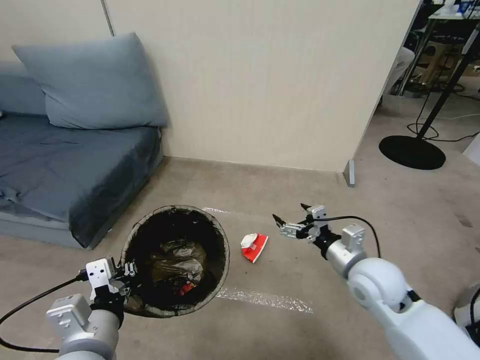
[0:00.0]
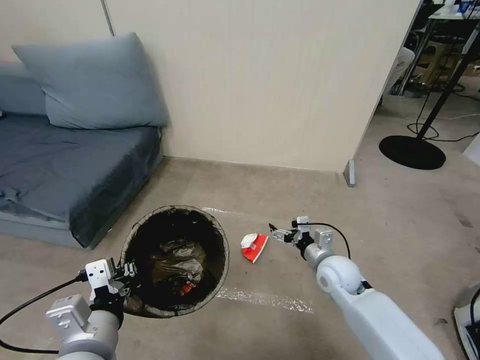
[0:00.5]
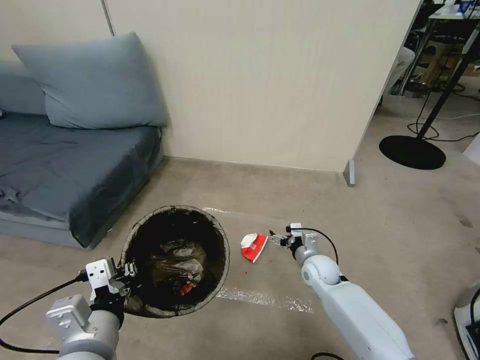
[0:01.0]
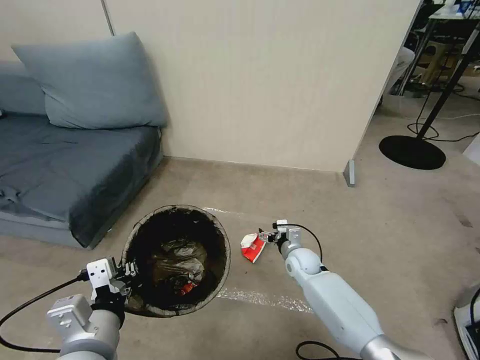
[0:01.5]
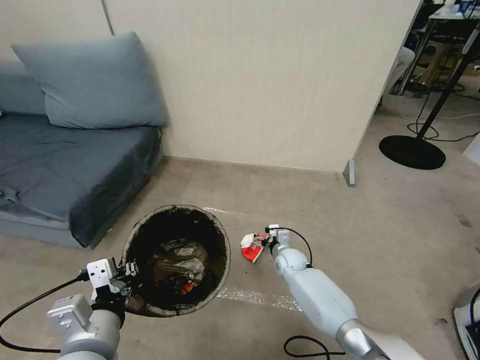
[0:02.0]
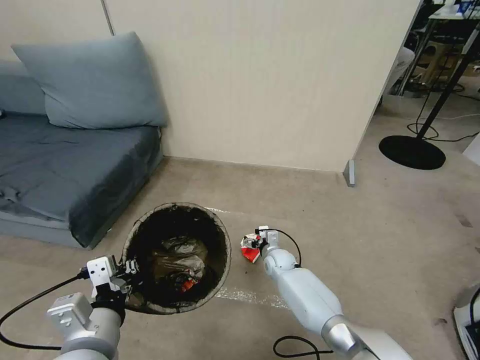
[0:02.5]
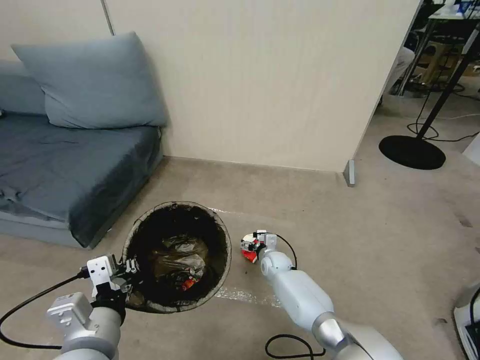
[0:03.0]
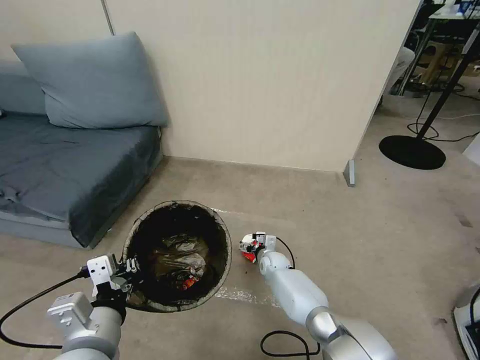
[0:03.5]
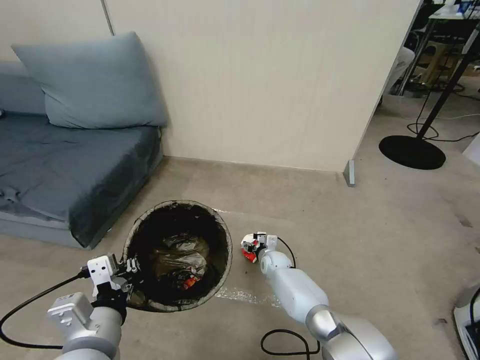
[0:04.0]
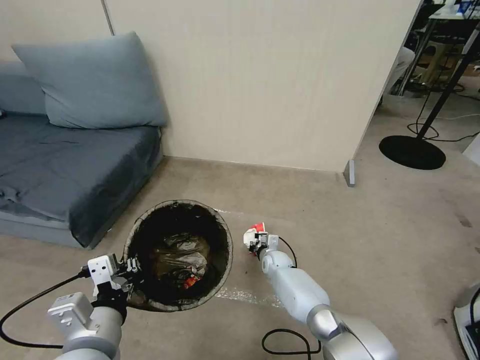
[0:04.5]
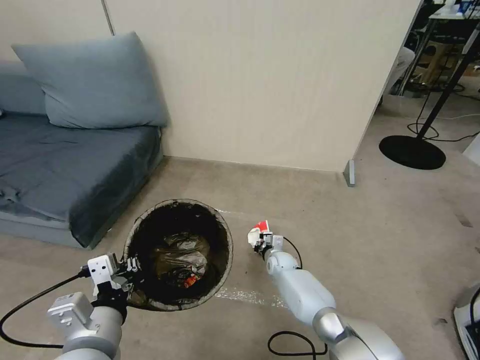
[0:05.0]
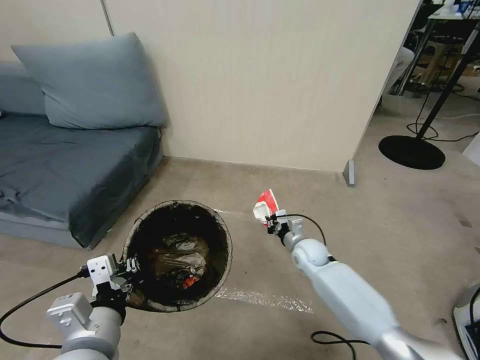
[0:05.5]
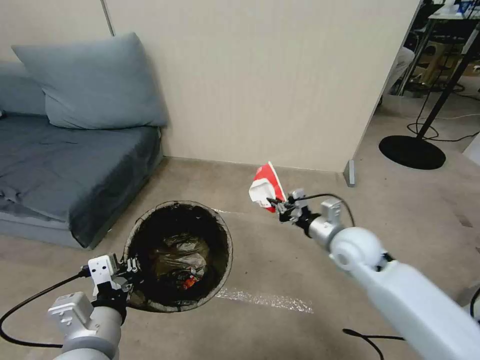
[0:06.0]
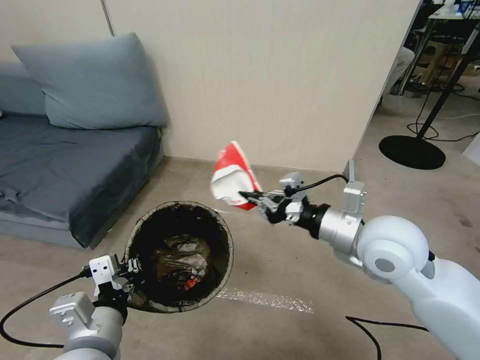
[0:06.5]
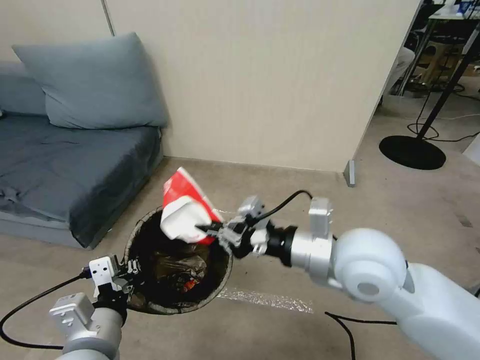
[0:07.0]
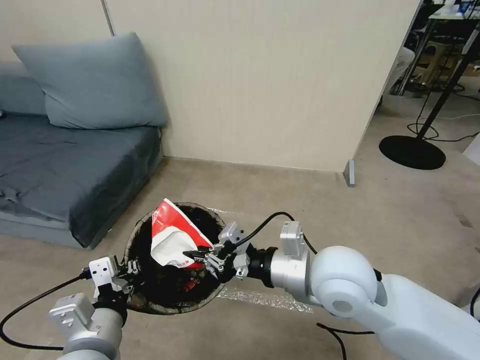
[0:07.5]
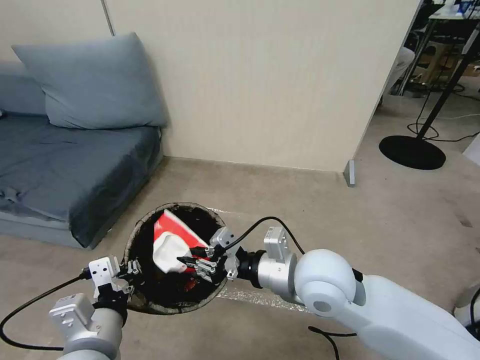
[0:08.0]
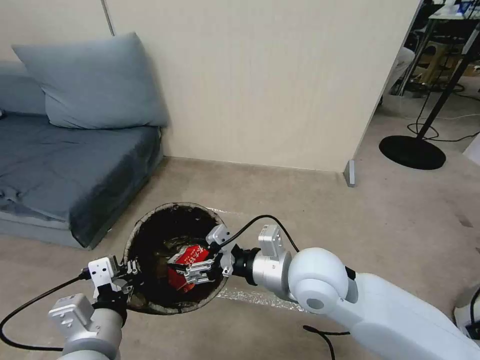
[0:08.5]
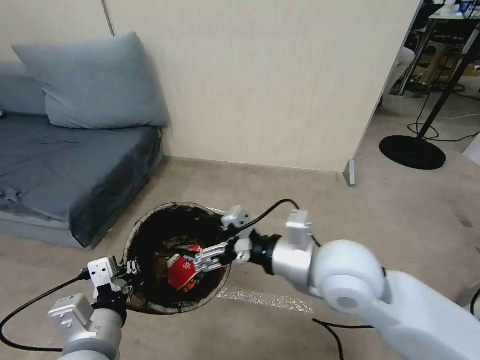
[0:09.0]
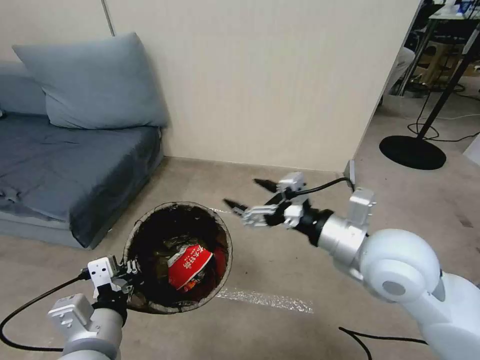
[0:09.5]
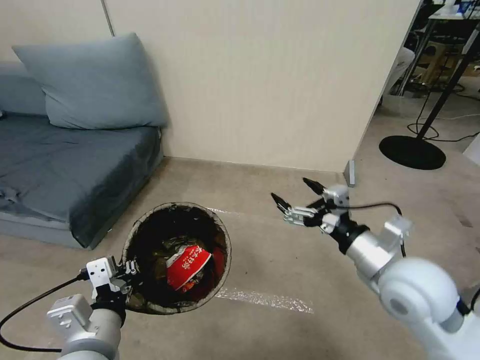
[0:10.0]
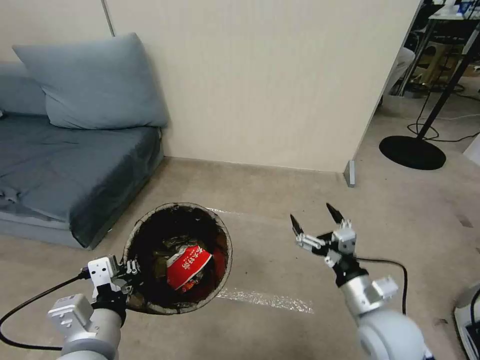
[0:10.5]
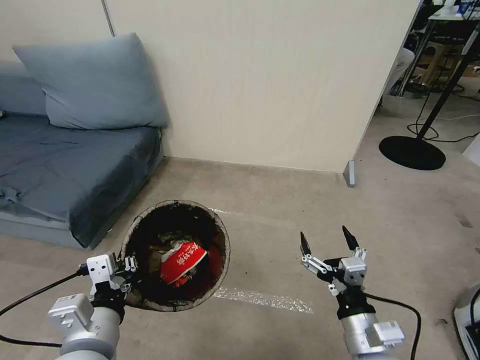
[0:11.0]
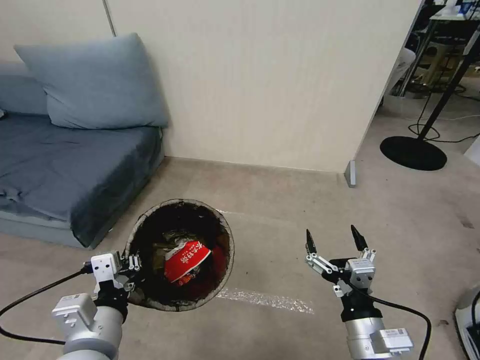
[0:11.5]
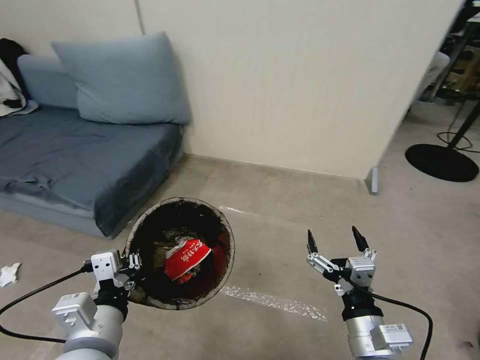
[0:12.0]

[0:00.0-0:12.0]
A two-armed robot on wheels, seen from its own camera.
Task of the whole recording: Pick up the trash bin, then pick up the garbage from the floor and place it into the trash bin.
0:00.0 to 0:02.0: The right gripper heads downward, forward and to the left, covering some 30 cm.
0:02.0 to 0:04.0: The right gripper shifts by about 5 cm.
0:04.0 to 0:06.0: The right gripper moves upward and to the right, roughly 30 cm, and closes up.
0:06.0 to 0:08.0: The right gripper goes roughly 15 cm to the left, backward and upward.
0:08.0 to 0:10.0: The right gripper heads to the right, covering roughly 15 cm, and opens.
0:10.0 to 0:12.0: The right gripper goes approximately 15 cm backward and downward.

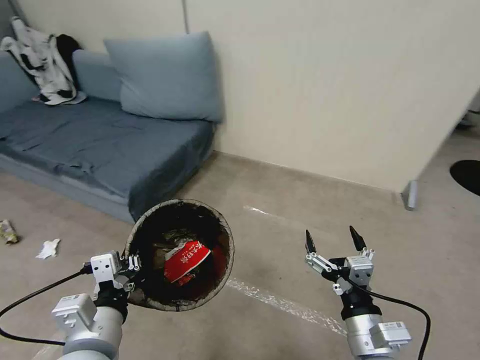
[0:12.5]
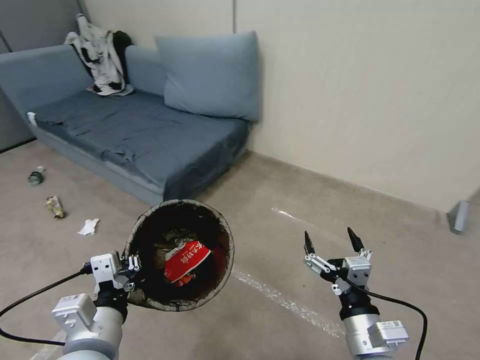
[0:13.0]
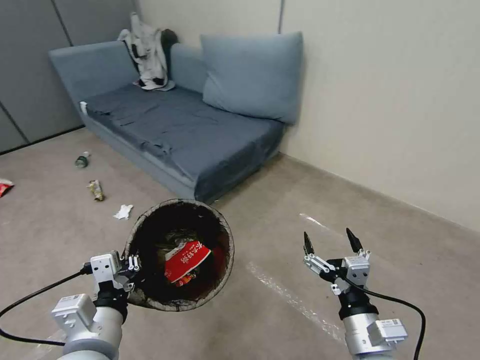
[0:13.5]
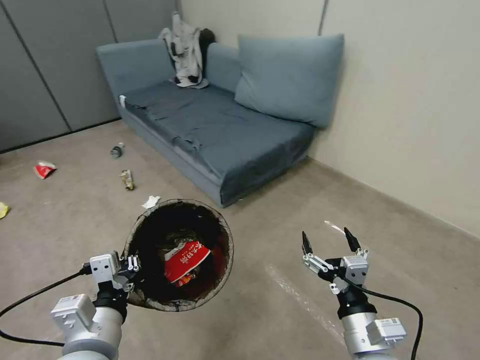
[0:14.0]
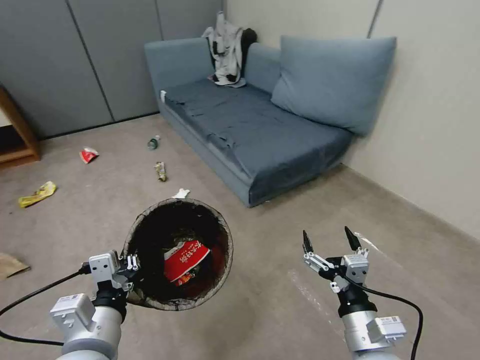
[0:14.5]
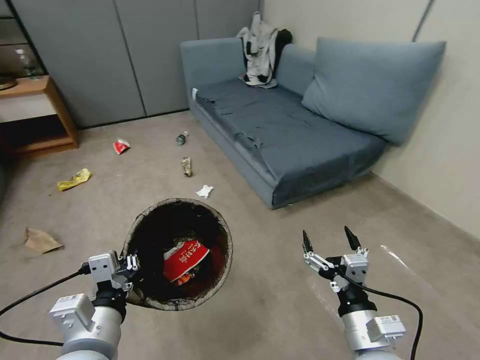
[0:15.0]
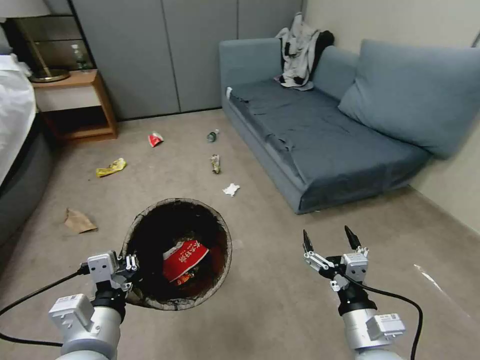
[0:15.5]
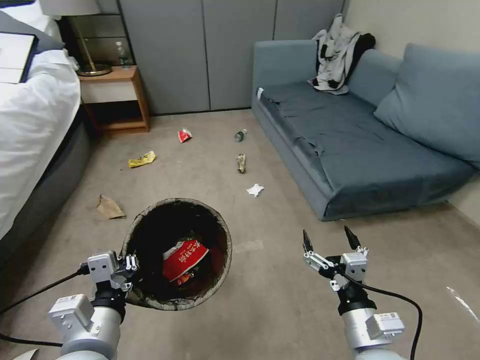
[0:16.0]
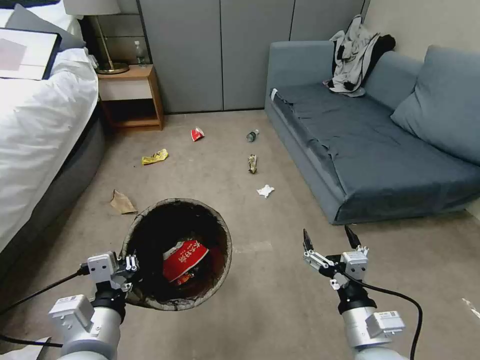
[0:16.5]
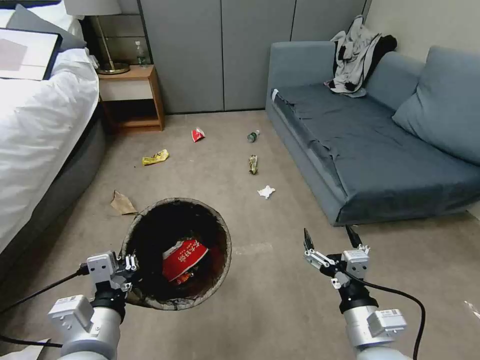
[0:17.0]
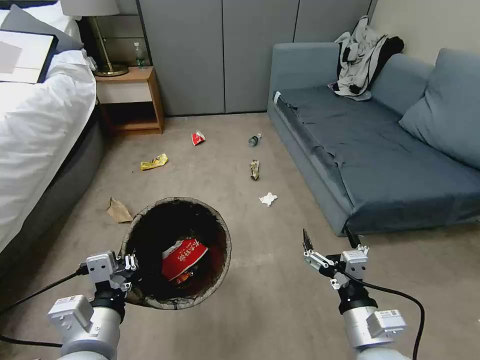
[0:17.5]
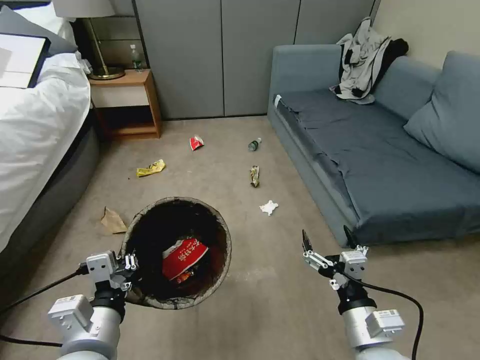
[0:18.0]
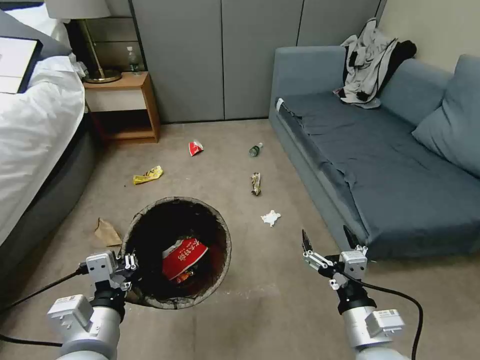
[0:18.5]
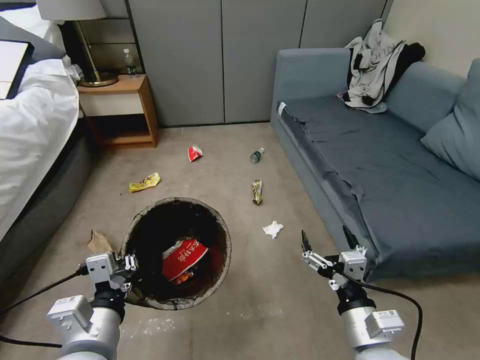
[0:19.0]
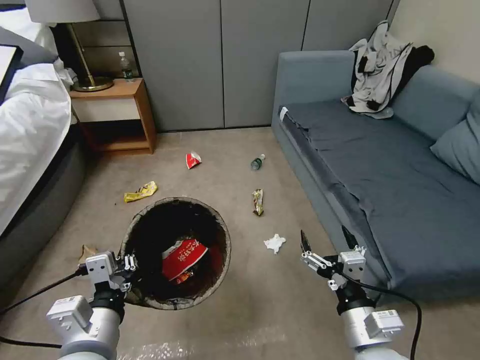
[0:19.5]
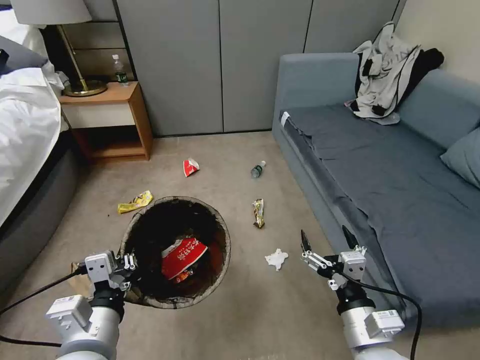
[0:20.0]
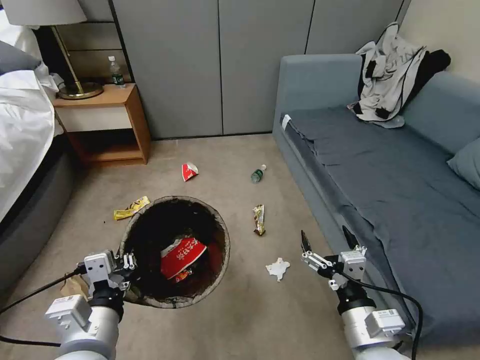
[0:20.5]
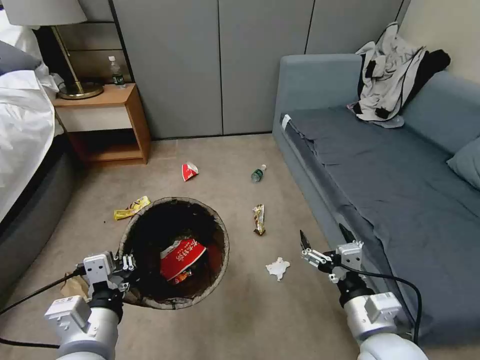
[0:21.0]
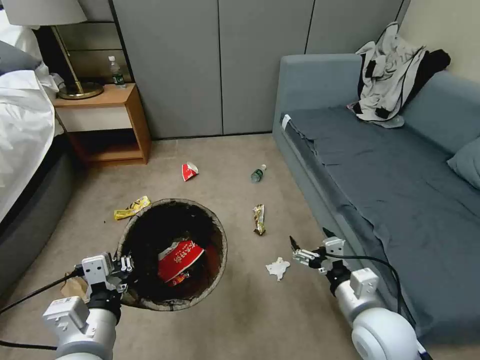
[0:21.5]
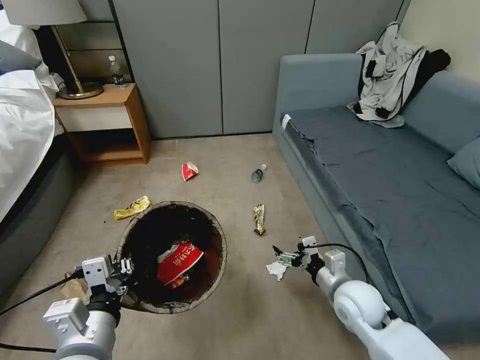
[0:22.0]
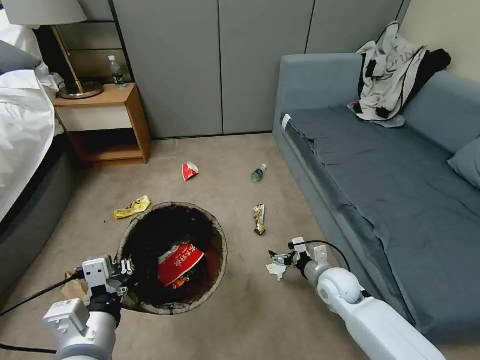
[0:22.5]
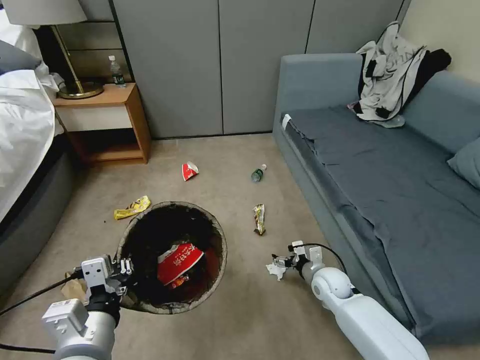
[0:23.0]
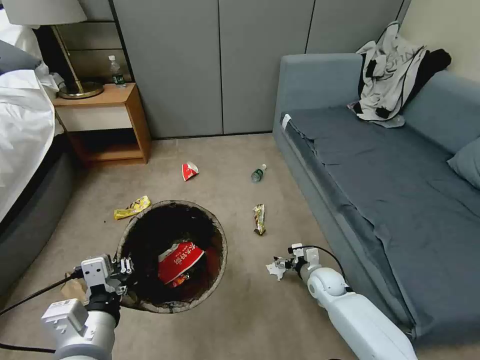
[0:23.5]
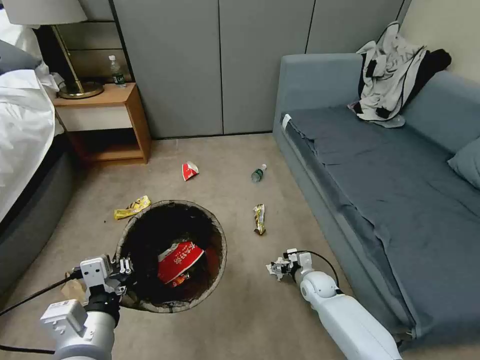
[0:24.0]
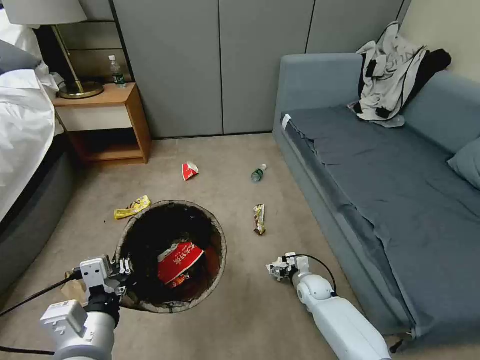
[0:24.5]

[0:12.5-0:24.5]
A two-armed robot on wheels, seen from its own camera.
Task of the whole recording: Pick up the trash bin, then pick up the garbage from the floor and place it into the trash bin.
0:20.5 to 0:22.5: The right gripper travels forward and downward by approximately 25 cm.
0:22.5 to 0:24.5: The right gripper moves downward, approximately 15 cm.

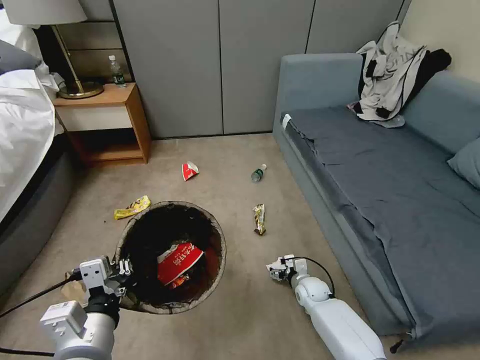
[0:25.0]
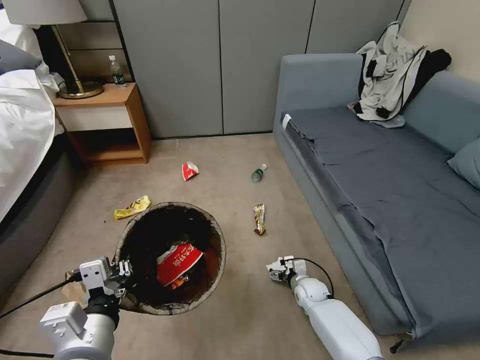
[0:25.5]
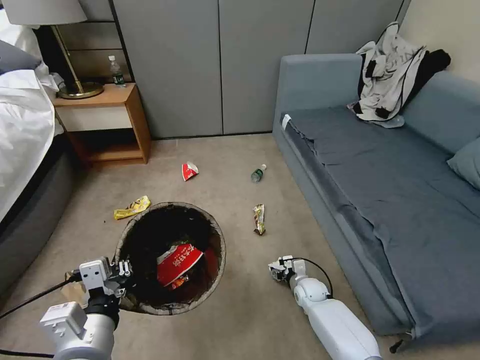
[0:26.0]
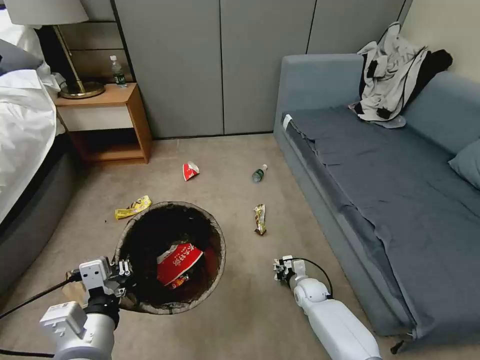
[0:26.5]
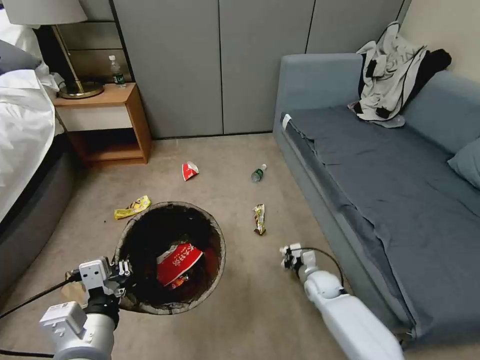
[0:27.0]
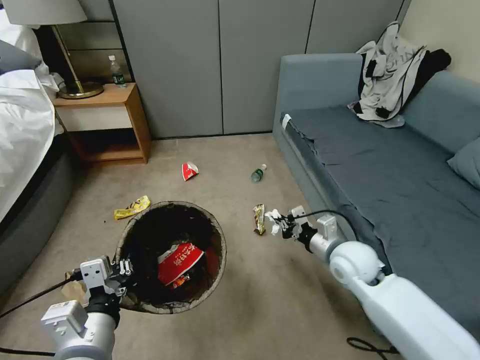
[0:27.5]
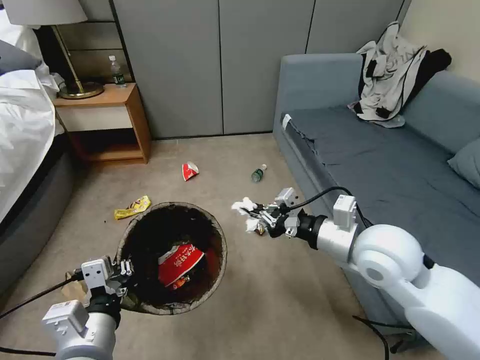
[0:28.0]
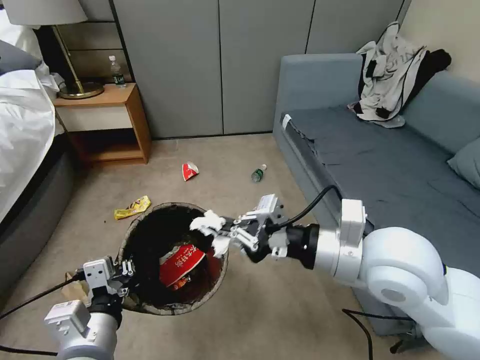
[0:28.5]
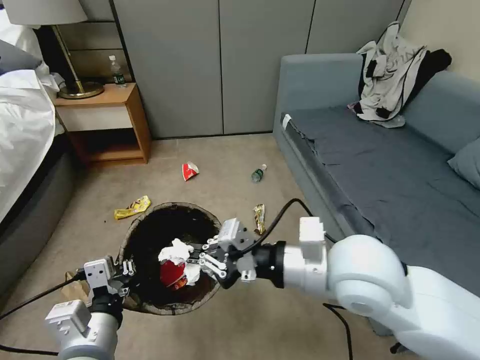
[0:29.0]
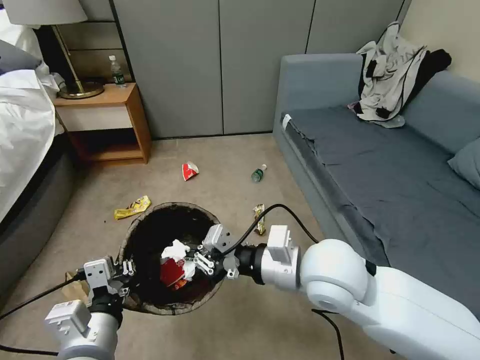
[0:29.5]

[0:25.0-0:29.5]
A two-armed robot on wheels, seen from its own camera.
Task of the whole recording: Pick up the trash bin, then pick up the garbage from the floor and place it into the trash bin.
0:25.0 to 0:27.0: The right gripper closes its fingers.
0:27.0 to 0:29.5: The right gripper shifts some 35 cm upward.
